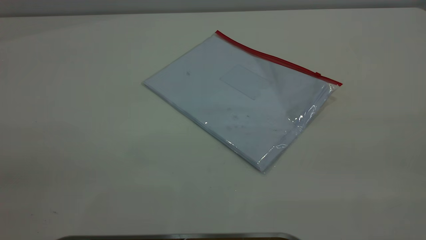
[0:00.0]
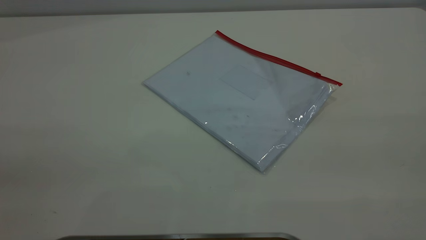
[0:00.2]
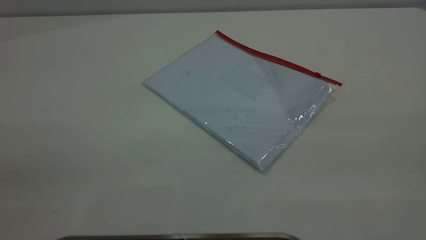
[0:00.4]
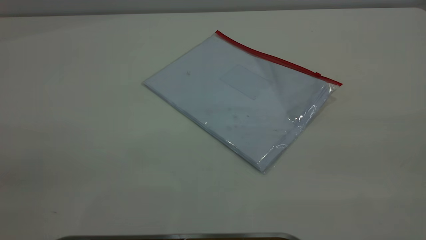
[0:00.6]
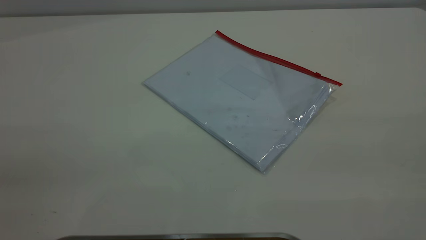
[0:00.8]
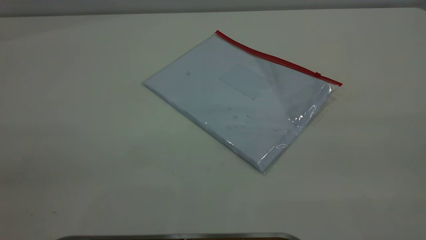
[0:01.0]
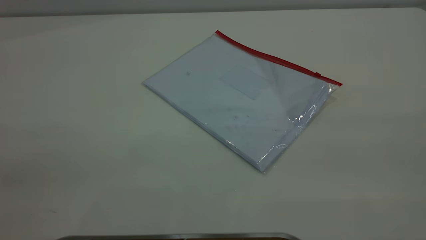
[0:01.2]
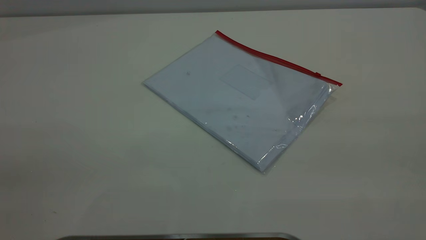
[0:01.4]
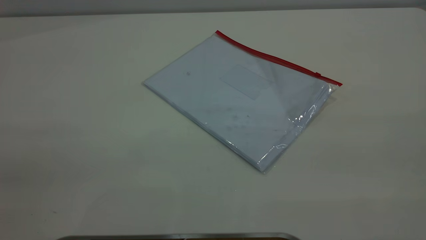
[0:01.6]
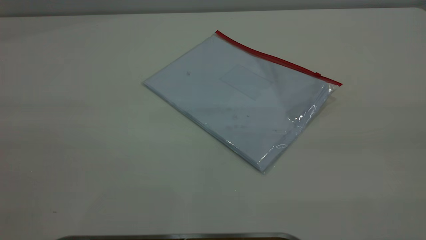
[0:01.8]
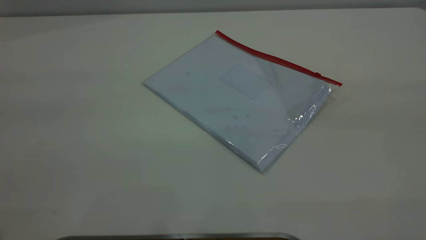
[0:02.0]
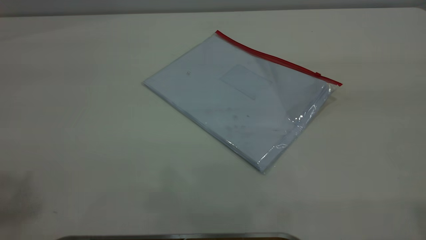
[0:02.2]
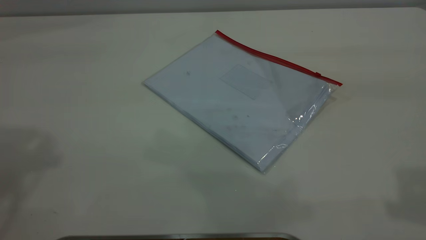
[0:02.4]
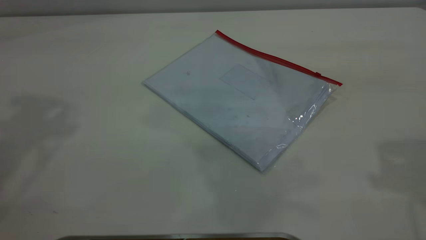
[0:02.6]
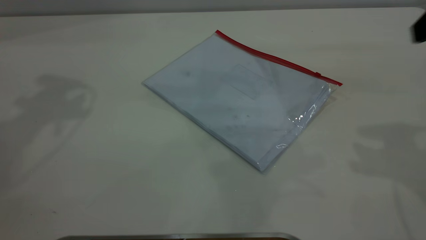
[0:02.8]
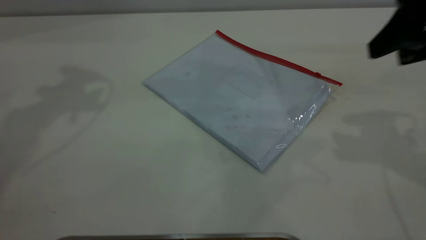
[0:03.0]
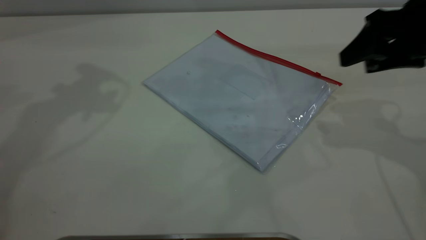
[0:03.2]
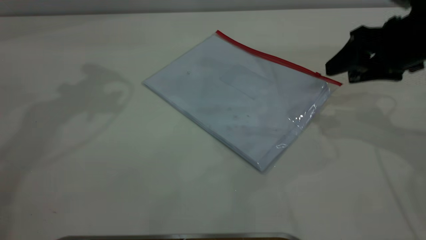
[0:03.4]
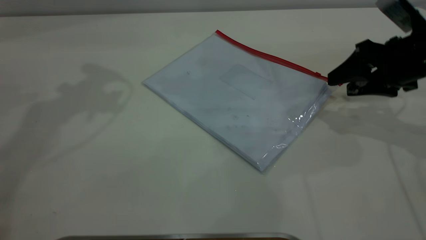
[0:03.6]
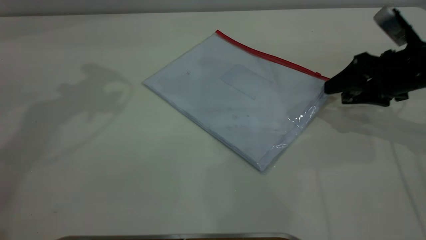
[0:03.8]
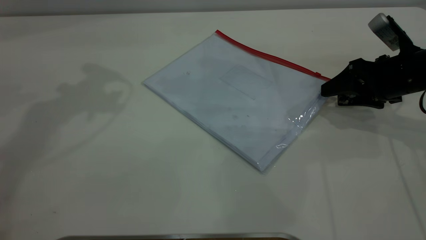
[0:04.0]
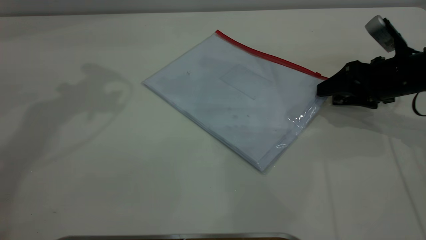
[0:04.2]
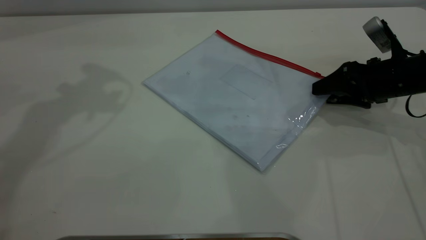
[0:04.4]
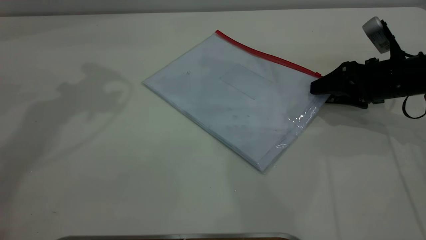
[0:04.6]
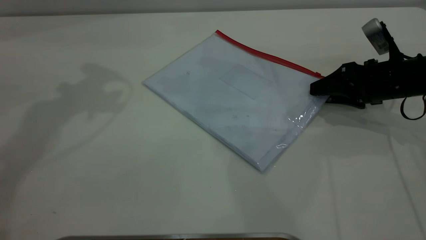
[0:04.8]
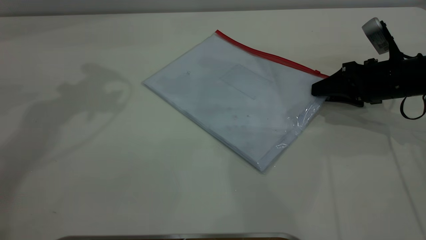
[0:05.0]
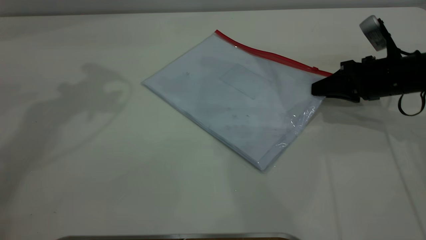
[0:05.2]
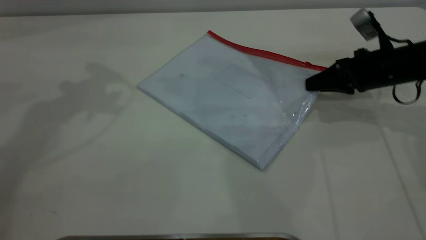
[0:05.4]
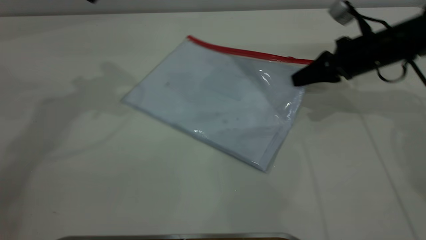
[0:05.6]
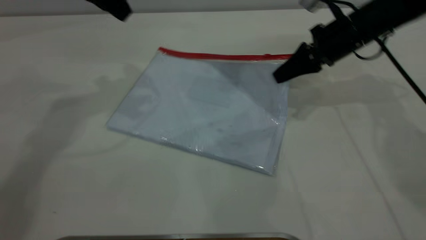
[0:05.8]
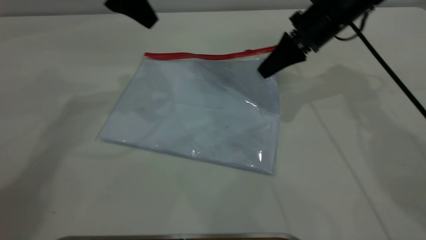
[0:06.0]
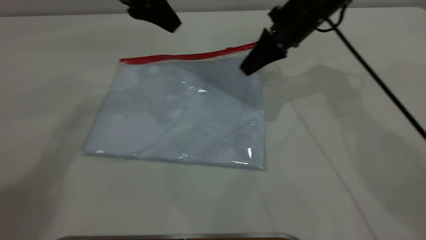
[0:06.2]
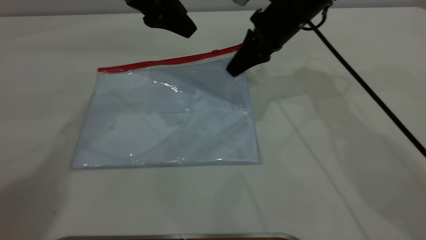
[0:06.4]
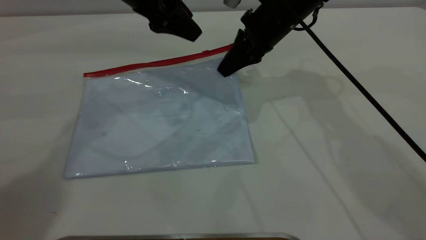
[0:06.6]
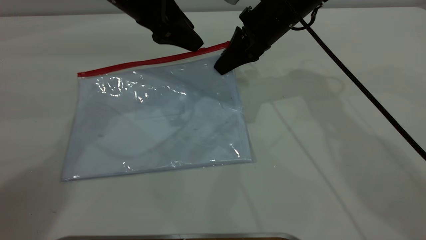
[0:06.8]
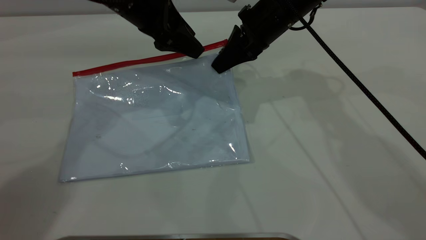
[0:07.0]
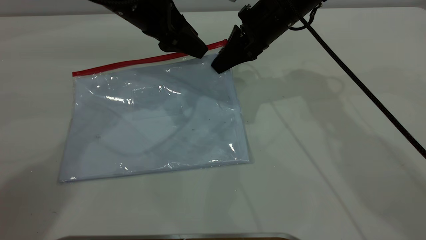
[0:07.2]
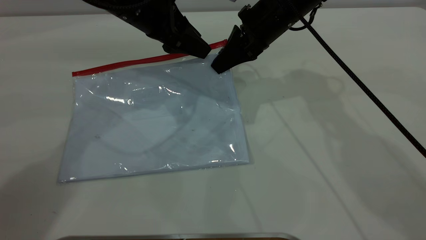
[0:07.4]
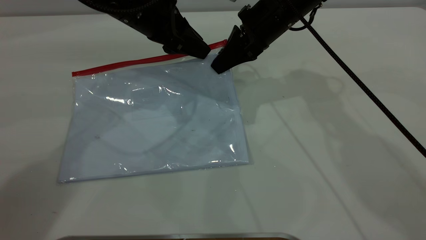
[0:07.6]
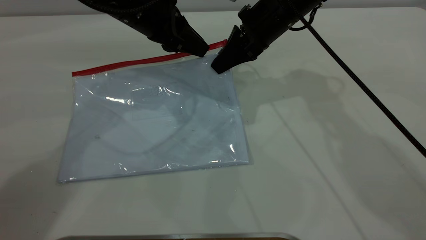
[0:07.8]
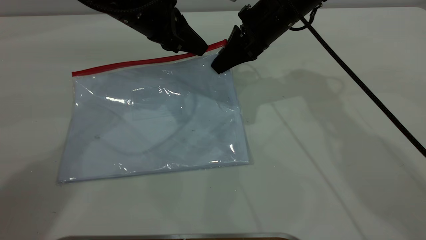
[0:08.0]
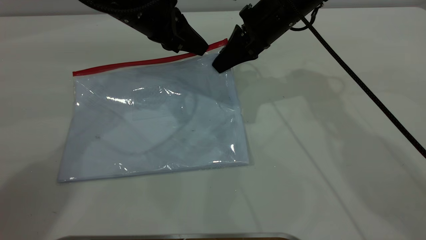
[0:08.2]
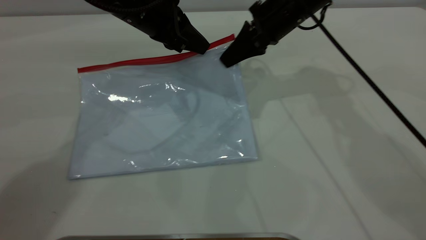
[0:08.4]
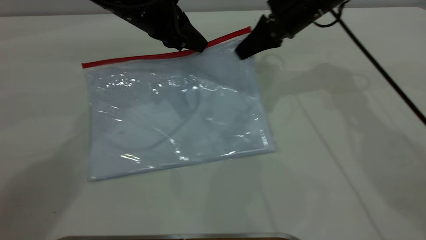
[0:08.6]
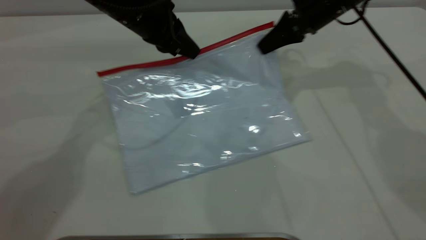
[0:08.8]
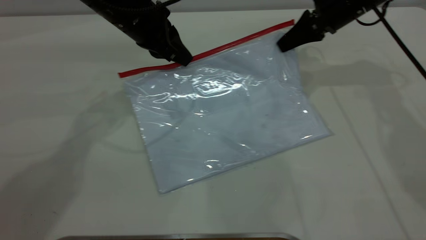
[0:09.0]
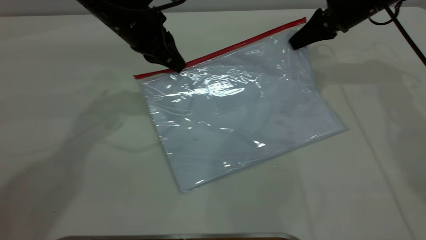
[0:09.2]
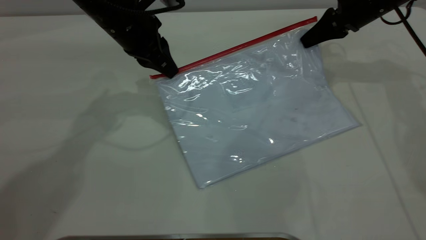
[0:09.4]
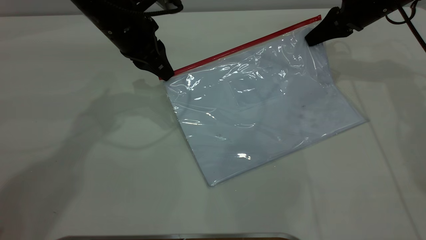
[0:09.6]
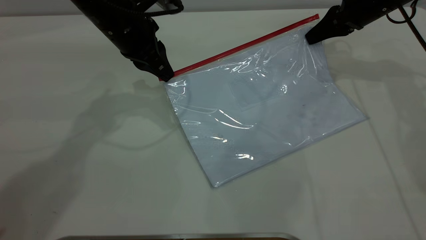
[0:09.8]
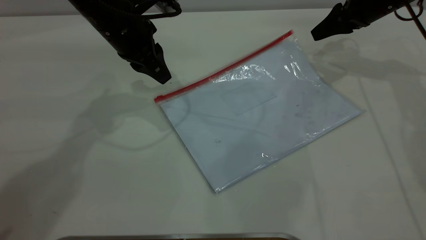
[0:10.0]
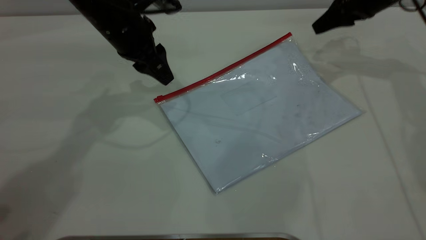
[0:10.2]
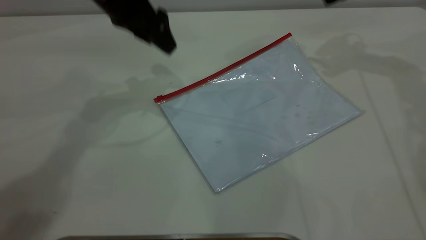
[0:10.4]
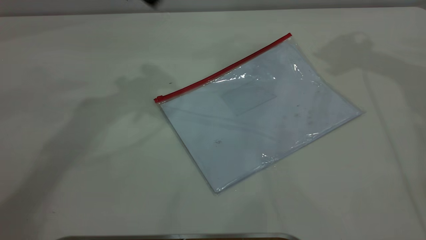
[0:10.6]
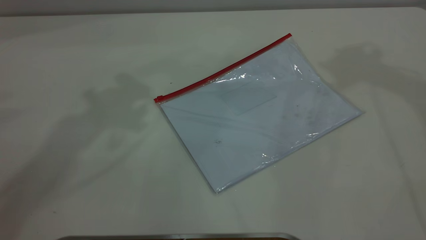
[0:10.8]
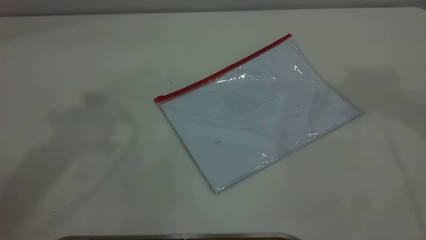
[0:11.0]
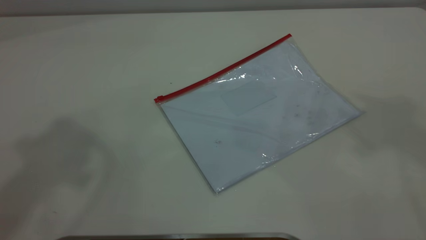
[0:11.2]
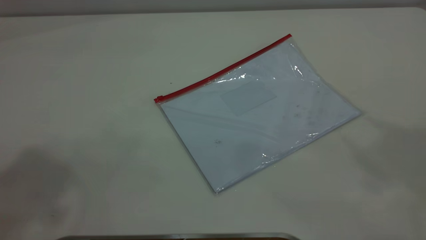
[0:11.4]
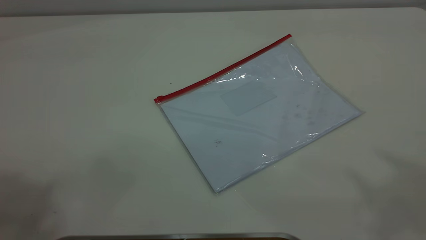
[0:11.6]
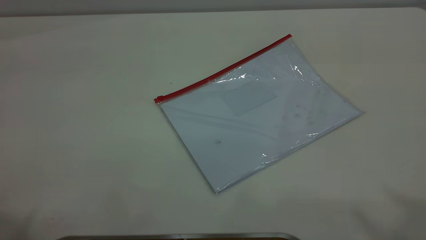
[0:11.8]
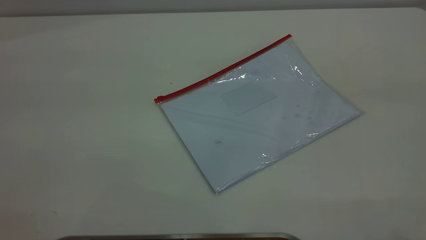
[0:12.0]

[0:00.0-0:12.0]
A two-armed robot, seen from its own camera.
Step, 0:00.0 to 0:05.6: Pick up the transparent plastic bag with the right gripper.
Step, 0:05.8 to 0:09.4: Pulling up the zipper on the transparent plastic bag with the left gripper to close it.
Step, 0:09.8 to 0:10.0: Place the transparent plastic bag.
0:00.0 to 0:01.6: Both grippers stay put.
0:01.6 to 0:03.0: The right gripper shifts about 30 cm forward and downward.
0:03.0 to 0:04.4: The right gripper heads downward and forward, covering approximately 20 cm.
0:04.4 to 0:06.0: The left gripper is displaced to the right and downward by roughly 10 cm. The right gripper heads to the left, forward and upward, covering about 15 cm, and closes.
0:06.0 to 0:07.6: The right gripper heads to the left, covering about 5 cm, while the left gripper moves downward, approximately 10 cm.
0:07.6 to 0:09.0: The right gripper goes about 15 cm to the right. Meanwhile the left gripper closes its fingers.
0:09.0 to 0:10.4: The left gripper goes roughly 5 cm upward, and opens. Meanwhile the right gripper goes about 10 cm upward and to the right, and opens up.
0:10.4 to 0:12.0: The two grippers go approximately 50 cm backward and upward.

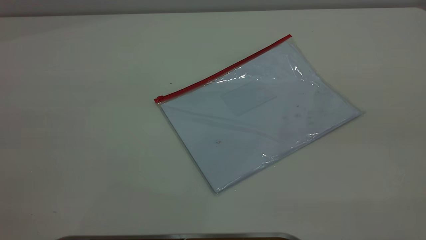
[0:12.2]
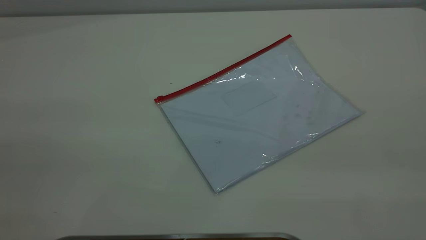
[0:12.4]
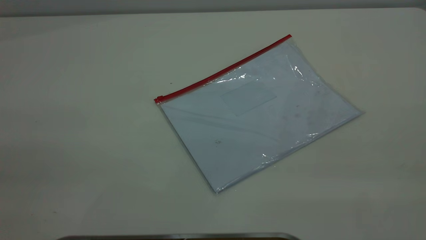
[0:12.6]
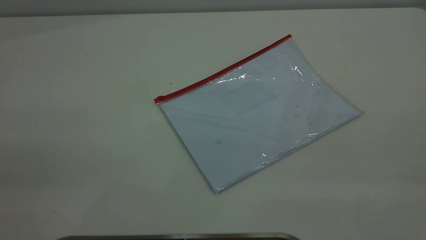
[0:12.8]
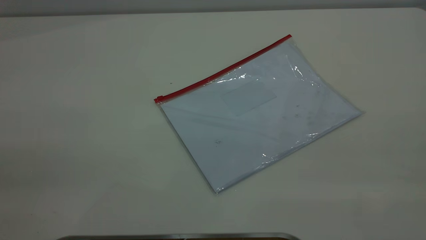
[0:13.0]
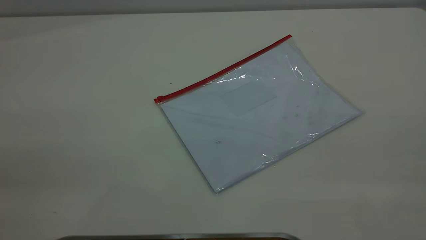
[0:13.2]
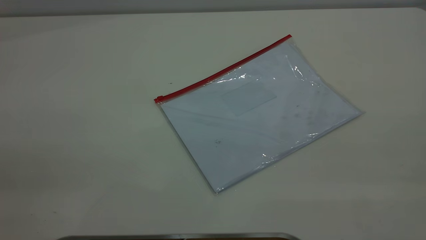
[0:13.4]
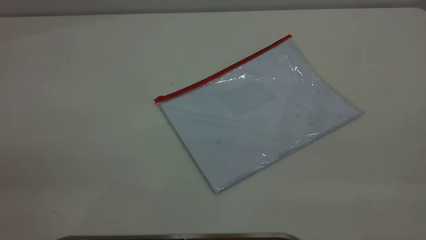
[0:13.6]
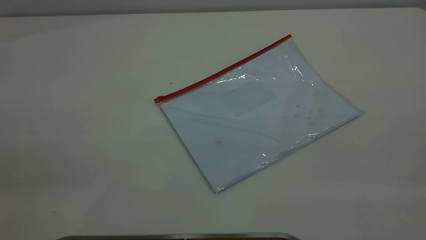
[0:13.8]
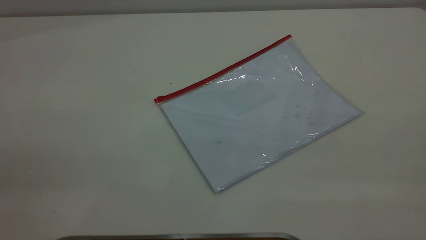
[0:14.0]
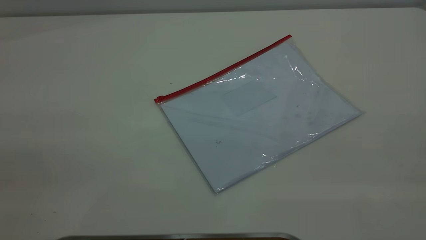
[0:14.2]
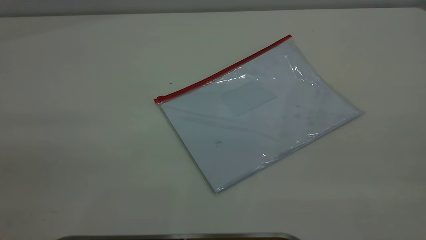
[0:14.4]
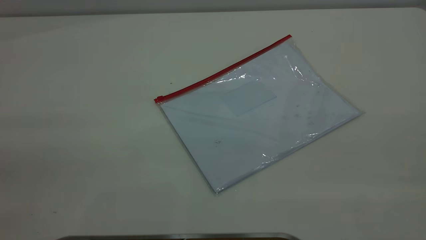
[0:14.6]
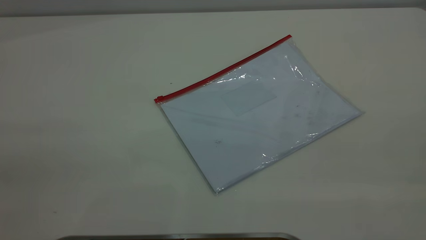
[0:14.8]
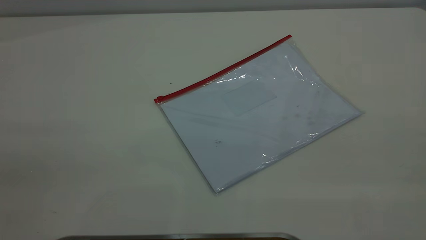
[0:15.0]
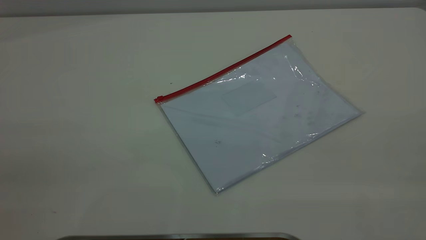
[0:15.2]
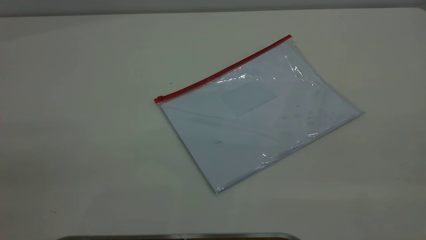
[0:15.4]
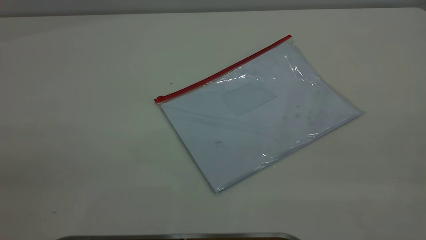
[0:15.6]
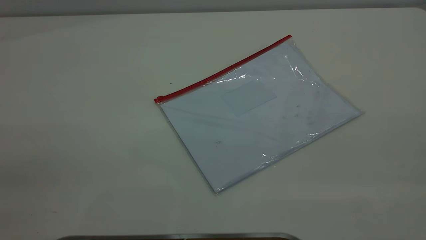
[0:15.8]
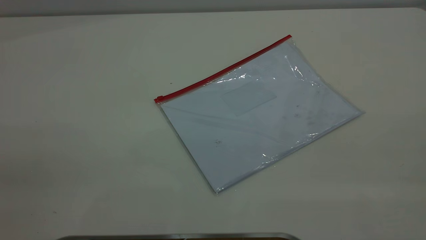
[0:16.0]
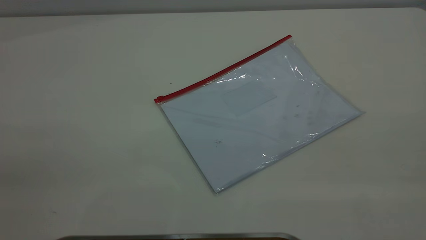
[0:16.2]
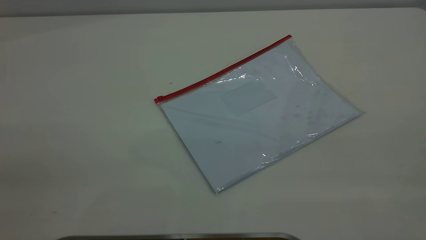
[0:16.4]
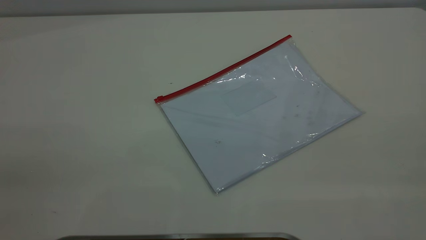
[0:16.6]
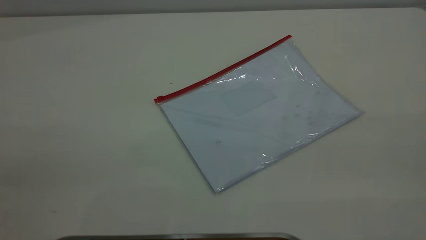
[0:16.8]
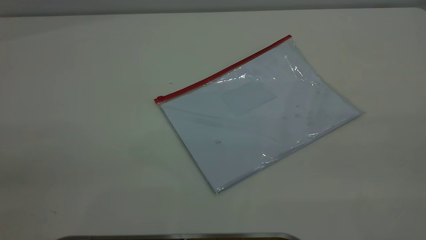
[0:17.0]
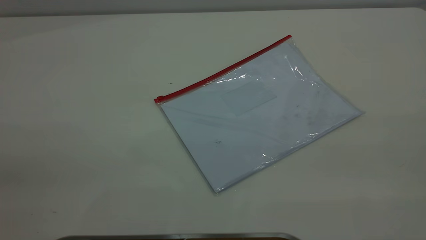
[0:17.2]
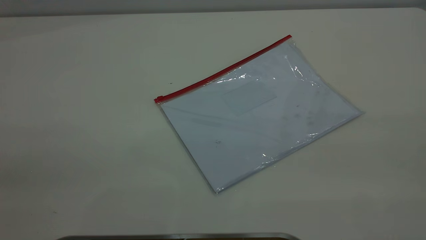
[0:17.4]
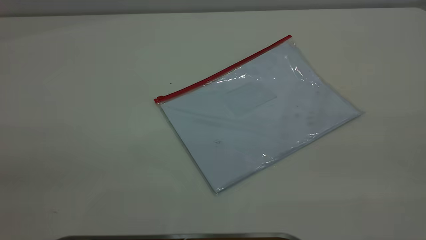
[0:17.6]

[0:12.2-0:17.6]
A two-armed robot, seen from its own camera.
0:15.0 to 0:16.2: Both grippers stay put.
